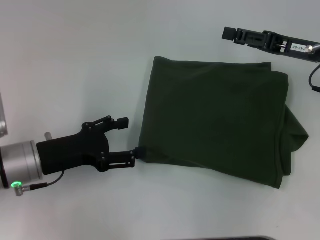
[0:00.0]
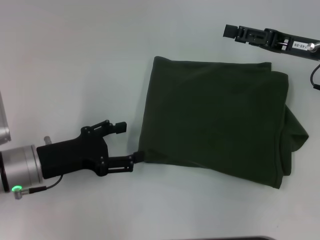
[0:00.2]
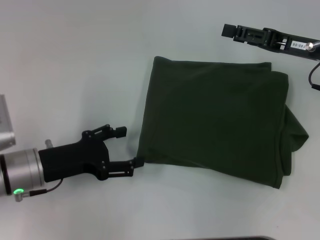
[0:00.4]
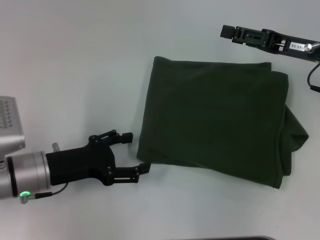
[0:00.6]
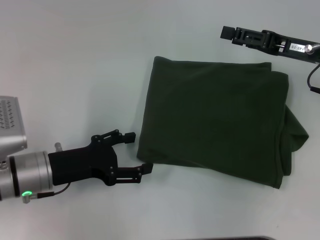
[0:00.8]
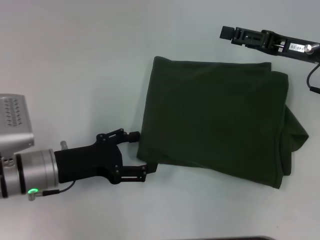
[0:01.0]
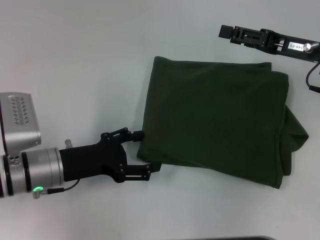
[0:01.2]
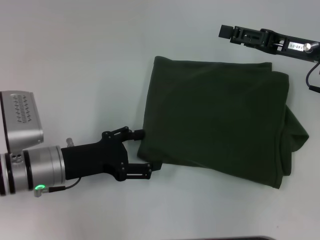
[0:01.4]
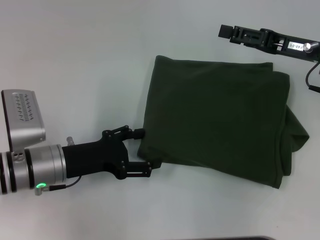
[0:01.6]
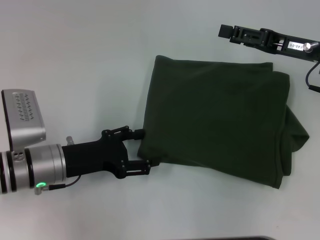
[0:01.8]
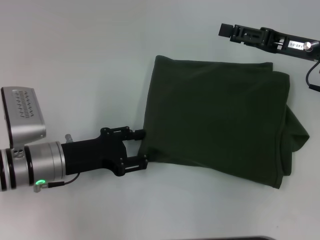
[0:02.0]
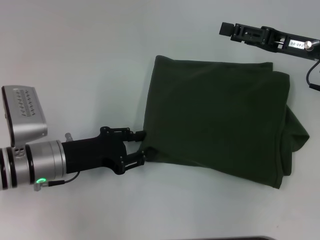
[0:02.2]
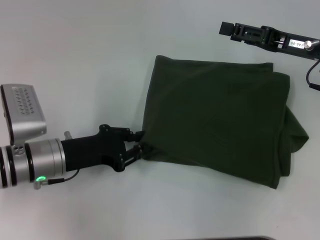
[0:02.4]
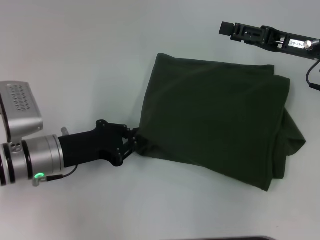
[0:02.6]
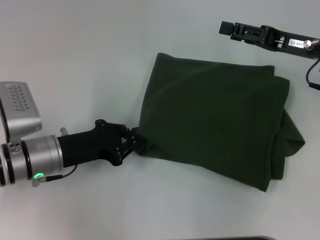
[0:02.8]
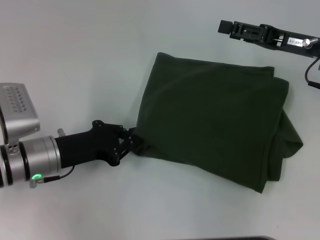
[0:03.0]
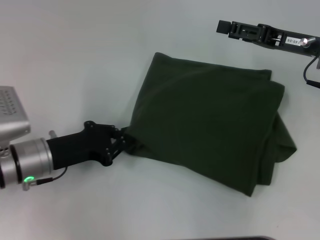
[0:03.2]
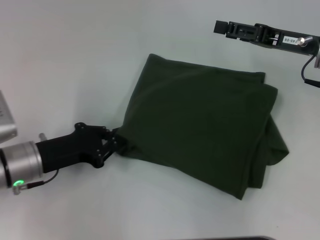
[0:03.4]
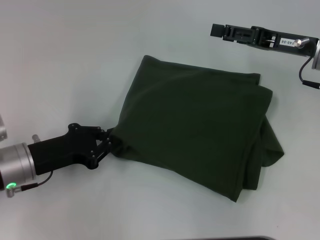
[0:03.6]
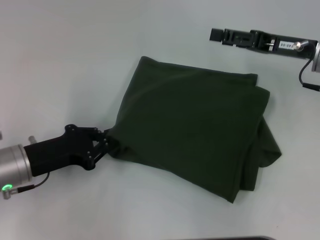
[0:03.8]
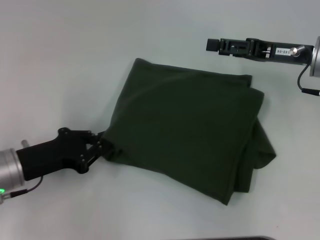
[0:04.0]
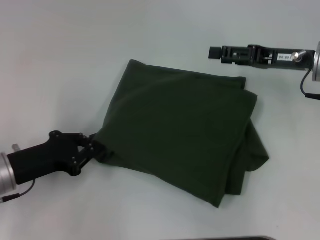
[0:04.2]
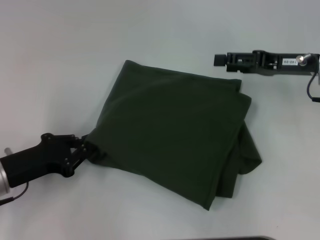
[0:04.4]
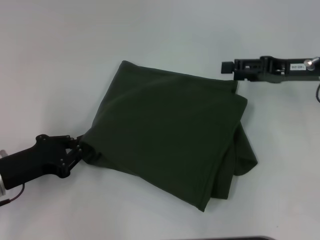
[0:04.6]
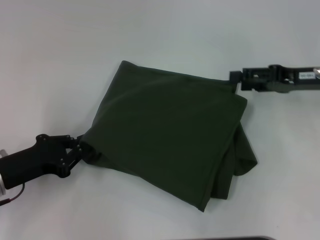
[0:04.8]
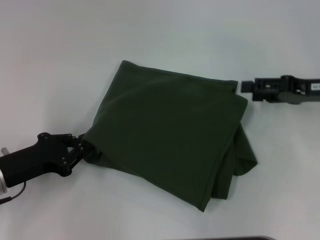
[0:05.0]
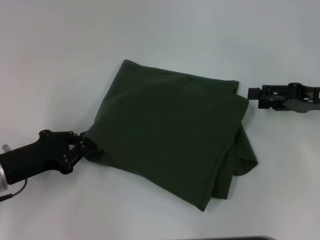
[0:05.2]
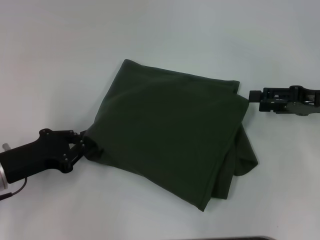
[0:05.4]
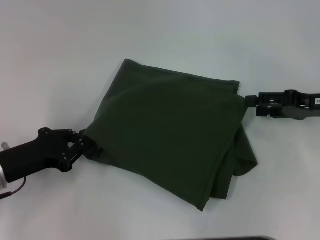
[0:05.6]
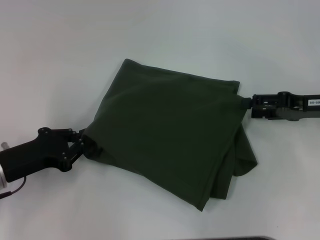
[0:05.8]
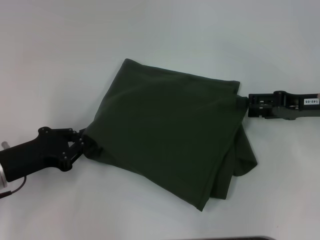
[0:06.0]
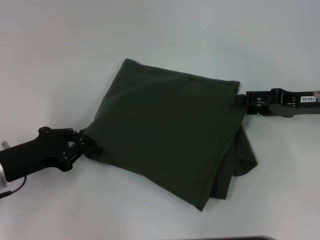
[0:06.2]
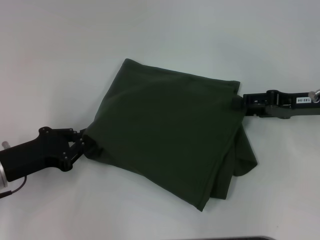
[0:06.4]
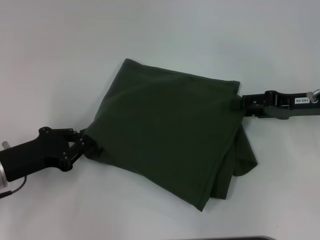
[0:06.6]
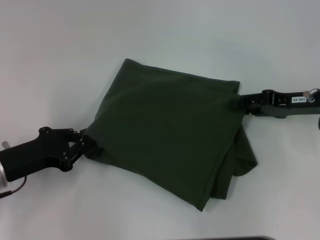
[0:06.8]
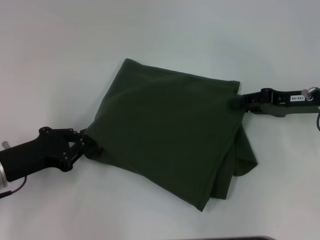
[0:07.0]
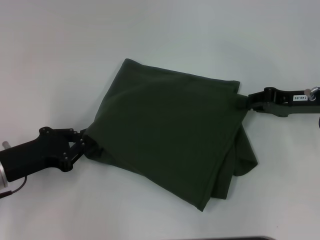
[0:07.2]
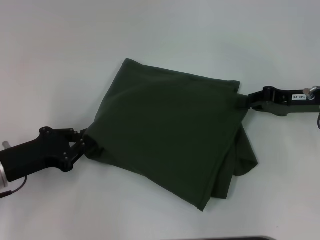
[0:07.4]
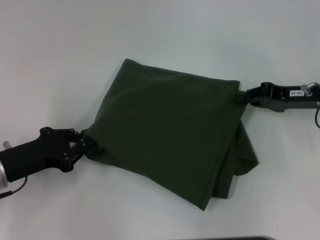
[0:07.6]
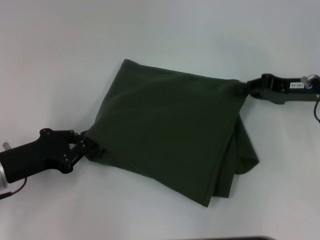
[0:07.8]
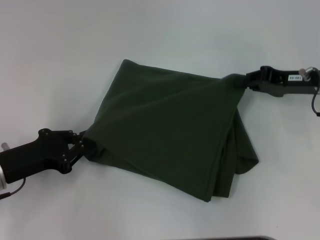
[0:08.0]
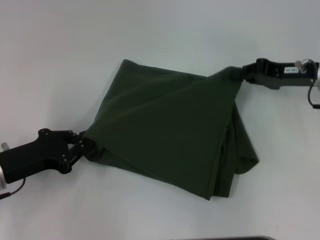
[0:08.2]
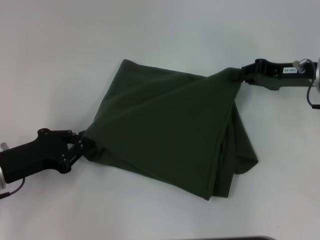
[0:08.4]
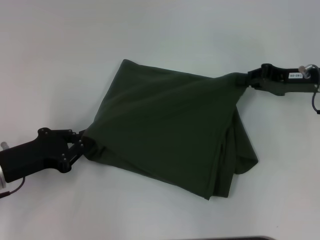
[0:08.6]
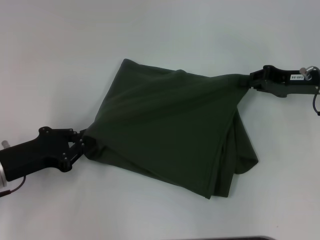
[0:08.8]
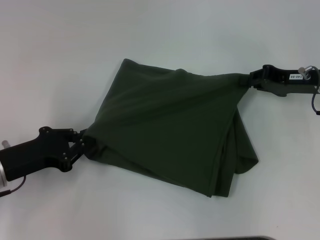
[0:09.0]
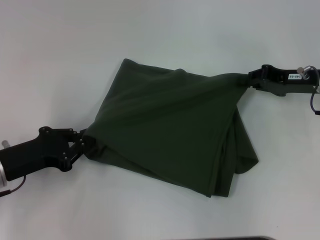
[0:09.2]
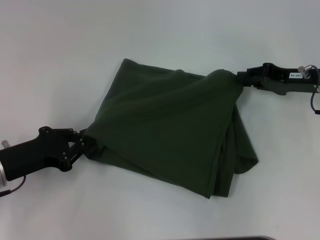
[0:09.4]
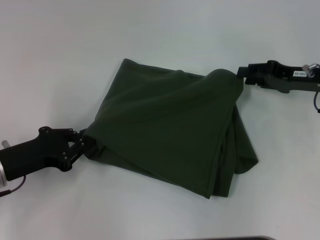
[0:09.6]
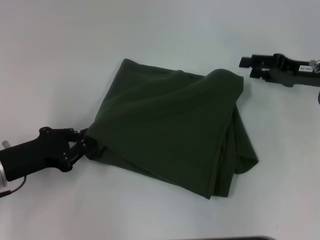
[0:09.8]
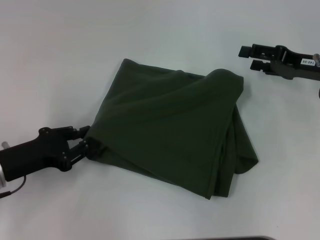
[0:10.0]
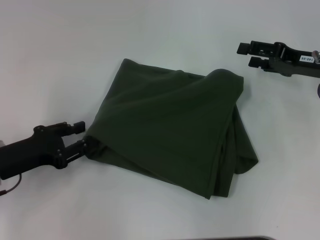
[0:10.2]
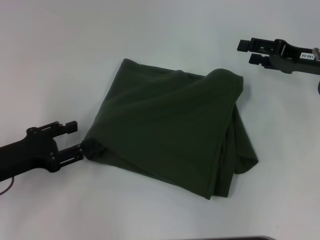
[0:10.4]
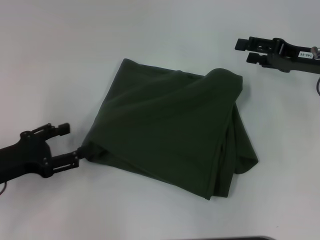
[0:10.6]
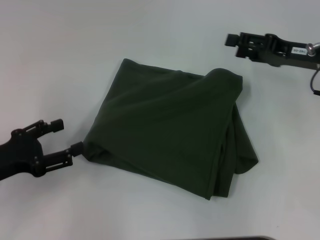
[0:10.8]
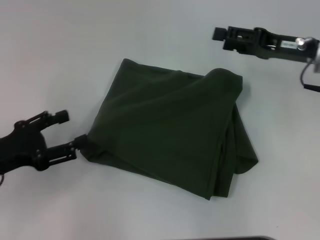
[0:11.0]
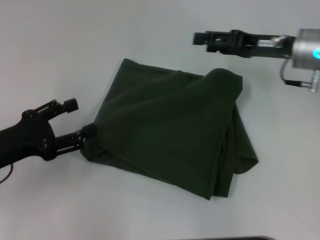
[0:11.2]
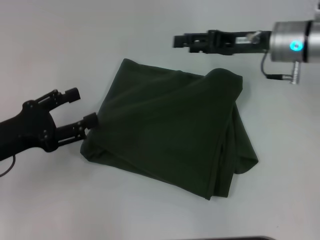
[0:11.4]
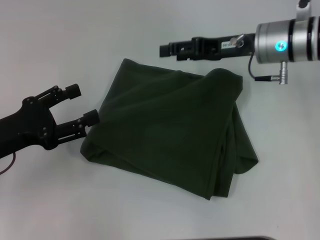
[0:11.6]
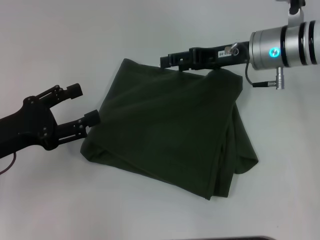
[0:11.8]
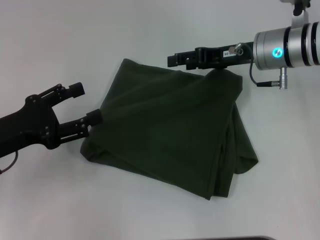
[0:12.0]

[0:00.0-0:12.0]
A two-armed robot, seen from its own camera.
0:00.0 to 0:01.6: There are only small adjustments of the grippers.
0:01.6 to 0:03.0: The left gripper closes.
0:03.0 to 0:04.4: The left gripper heads to the left, covering some 5 cm.
0:04.4 to 0:06.0: The right gripper moves about 5 cm.
0:06.0 to 0:07.6: The right gripper closes up.
0:07.6 to 0:09.0: There are only small adjustments of the grippers.
0:09.0 to 0:10.4: The right gripper opens up.
0:10.4 to 0:12.0: The right gripper travels to the left by approximately 10 cm. The left gripper opens.

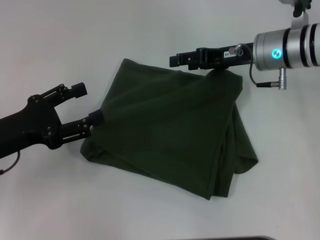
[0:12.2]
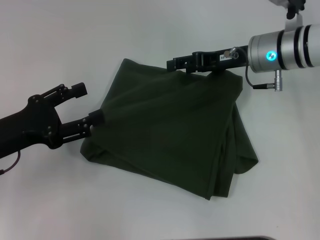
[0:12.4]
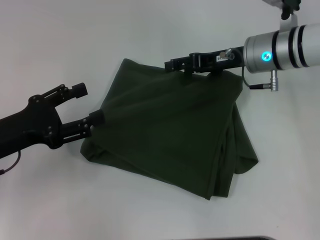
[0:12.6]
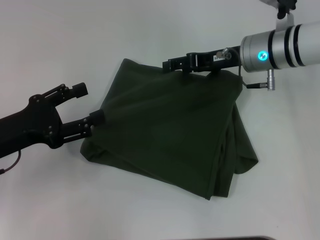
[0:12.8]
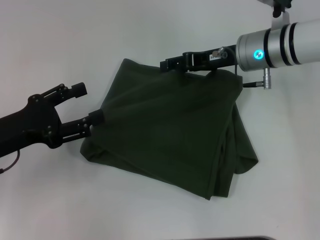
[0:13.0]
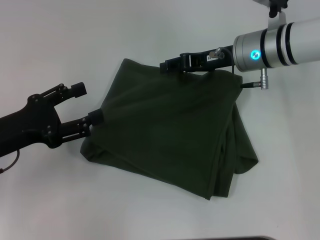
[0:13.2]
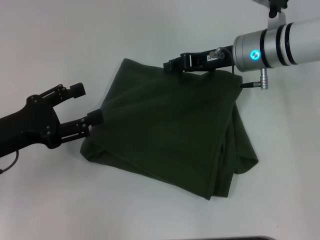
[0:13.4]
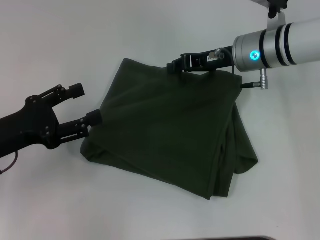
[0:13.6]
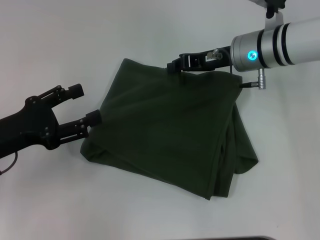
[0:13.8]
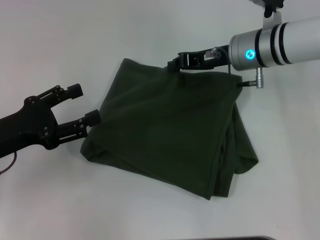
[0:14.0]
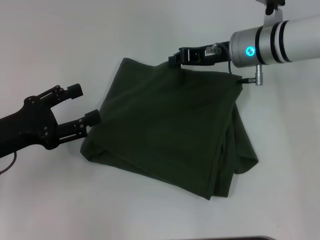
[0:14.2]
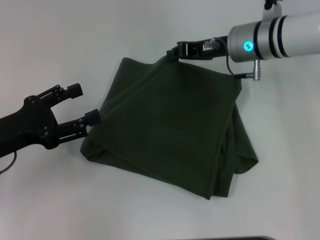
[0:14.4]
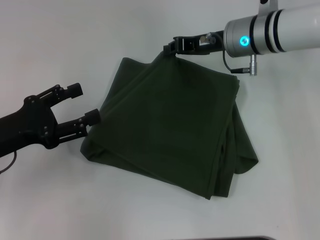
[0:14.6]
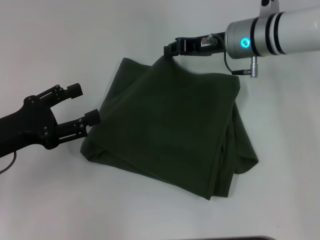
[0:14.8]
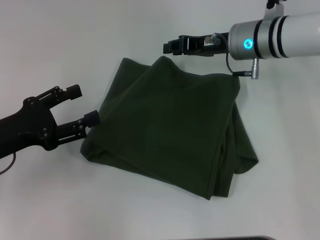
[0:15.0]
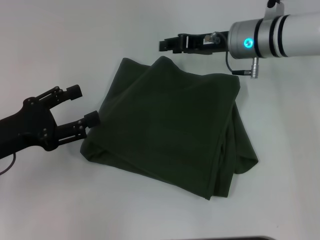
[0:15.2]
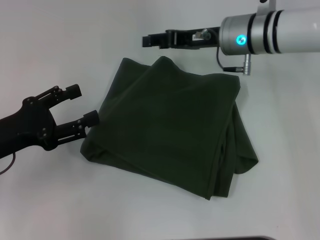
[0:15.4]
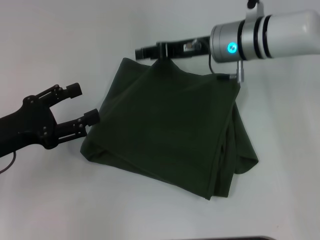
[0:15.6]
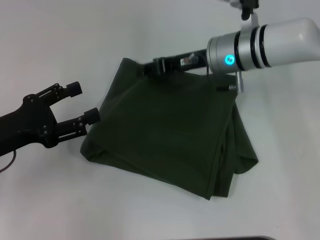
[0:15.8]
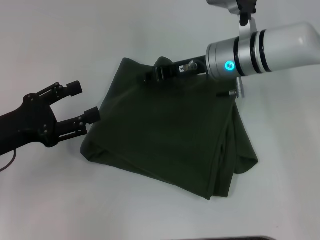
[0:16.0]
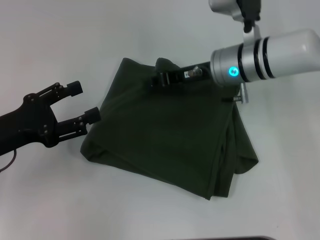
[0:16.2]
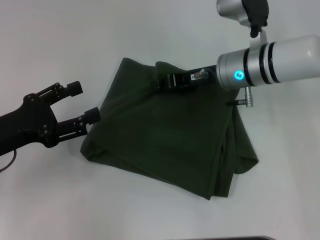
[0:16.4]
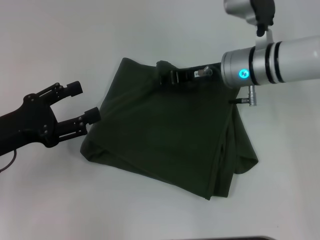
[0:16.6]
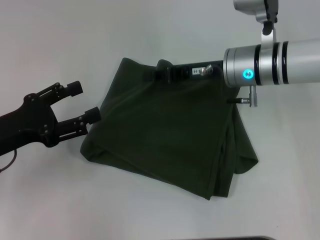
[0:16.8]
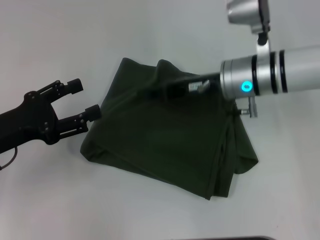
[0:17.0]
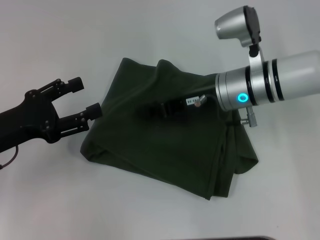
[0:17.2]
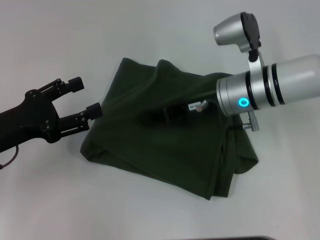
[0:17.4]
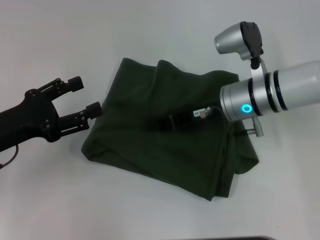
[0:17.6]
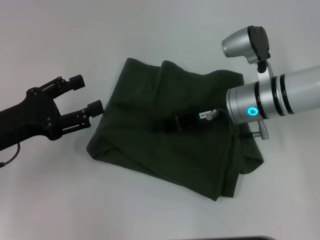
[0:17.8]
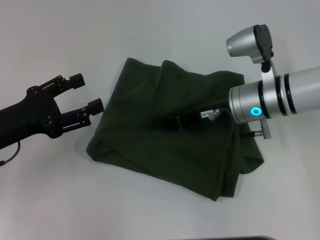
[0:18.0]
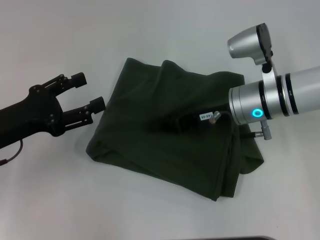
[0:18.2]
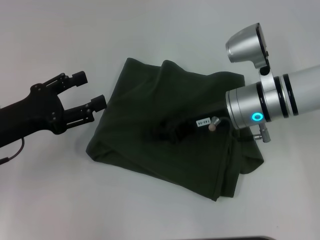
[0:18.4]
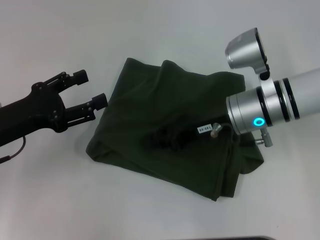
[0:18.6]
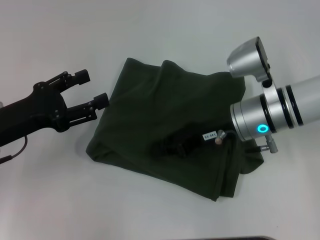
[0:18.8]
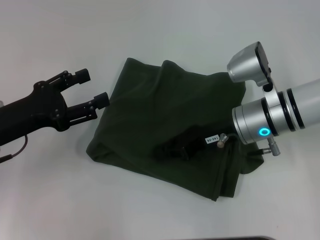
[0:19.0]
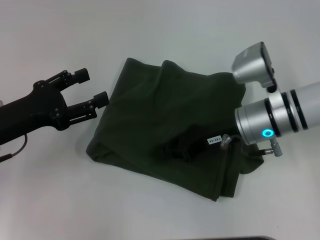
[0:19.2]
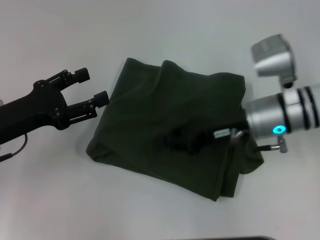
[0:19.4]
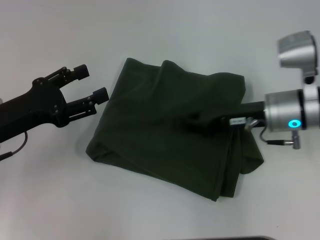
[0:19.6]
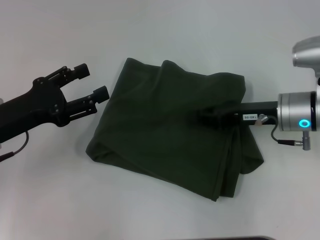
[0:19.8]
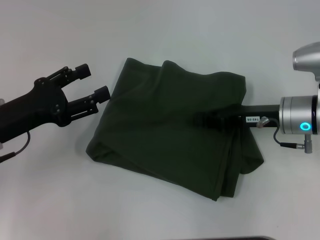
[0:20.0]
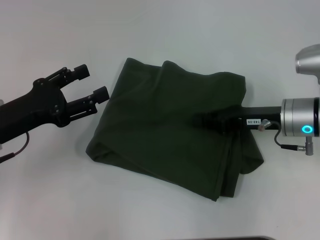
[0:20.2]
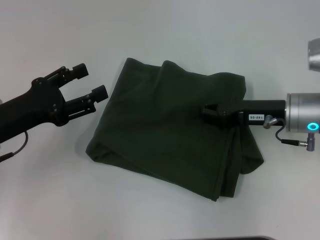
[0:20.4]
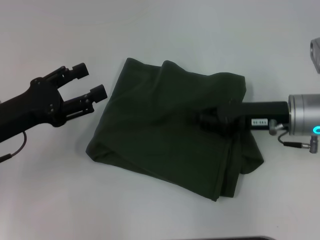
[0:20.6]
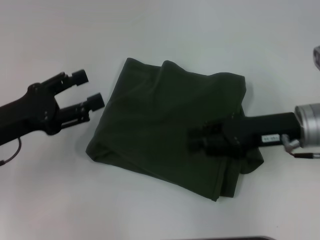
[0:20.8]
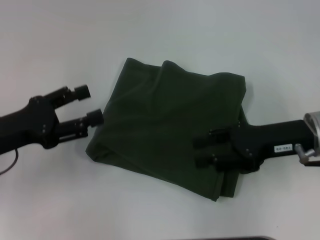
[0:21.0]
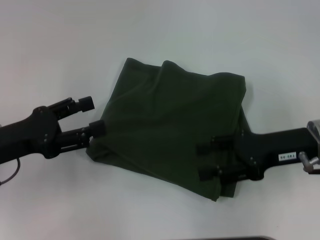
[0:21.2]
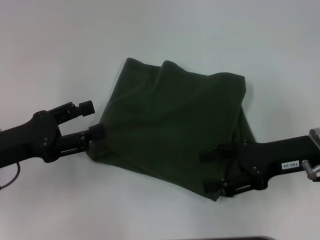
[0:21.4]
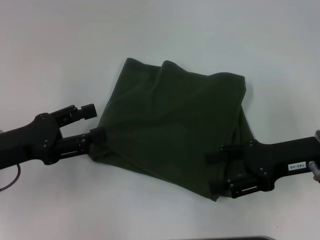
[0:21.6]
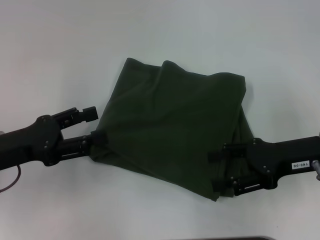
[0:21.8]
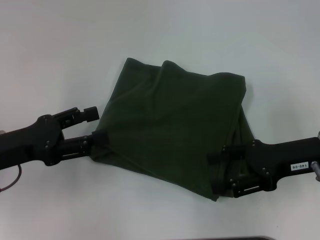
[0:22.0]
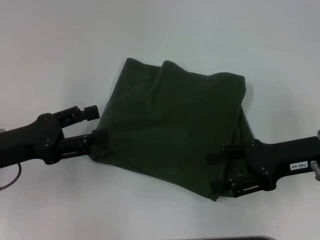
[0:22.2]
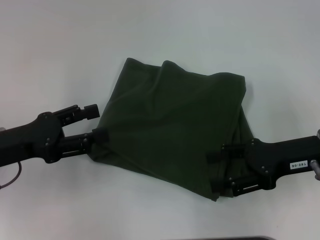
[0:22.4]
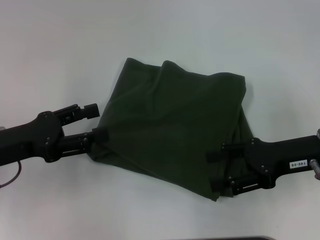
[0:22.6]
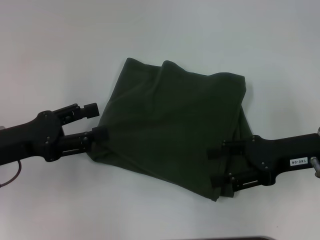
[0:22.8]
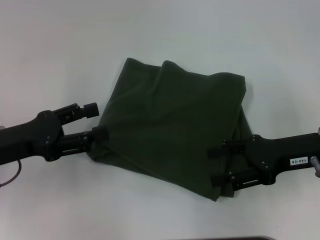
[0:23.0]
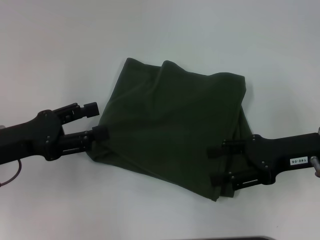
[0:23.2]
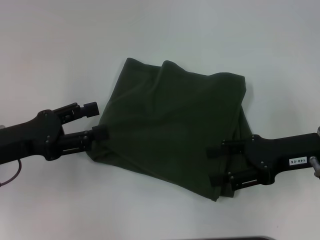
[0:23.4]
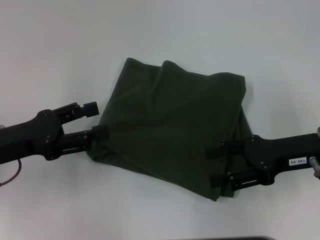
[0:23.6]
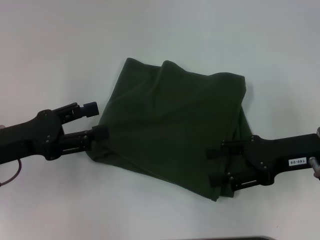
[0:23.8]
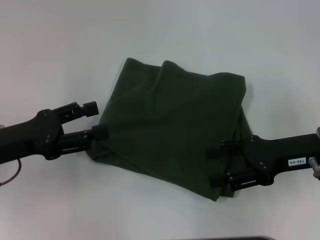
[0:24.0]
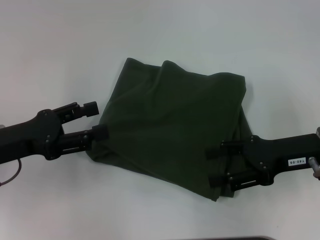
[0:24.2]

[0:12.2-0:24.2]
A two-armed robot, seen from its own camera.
0:12.2 to 0:13.8: The right gripper closes.
0:13.8 to 0:16.6: The grippers stay close to where they were, moving slightly.
0:16.6 to 0:18.2: There are only small adjustments of the grippers.
0:18.2 to 0:19.8: The right gripper goes approximately 5 cm to the right.
0:19.8 to 0:21.2: The right gripper ends up approximately 5 cm from where it was, and opens.
0:21.2 to 0:22.6: The right gripper opens up.
0:22.6 to 0:24.2: Both grippers stay about where they are.
